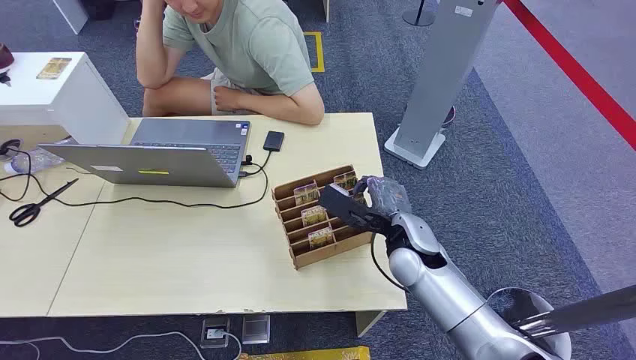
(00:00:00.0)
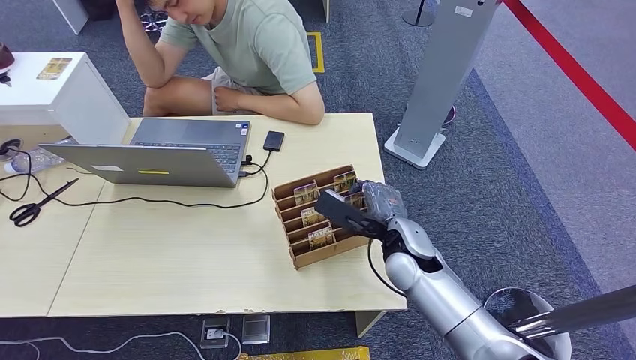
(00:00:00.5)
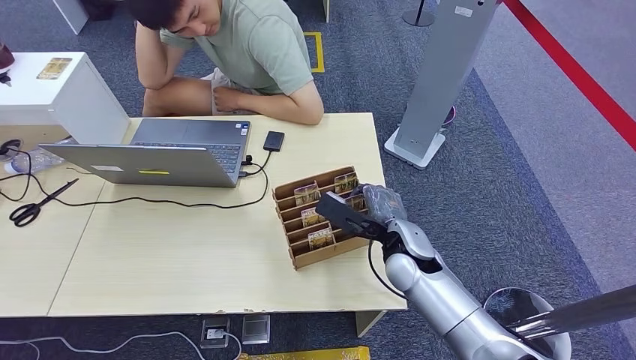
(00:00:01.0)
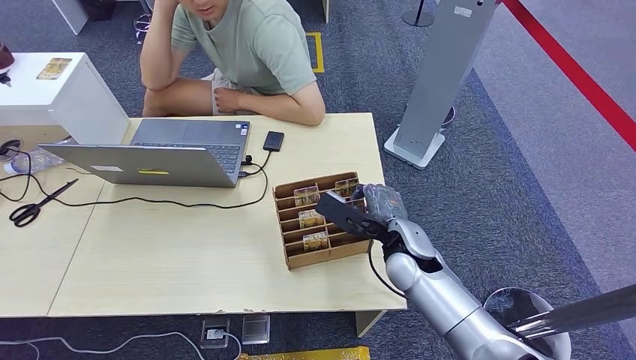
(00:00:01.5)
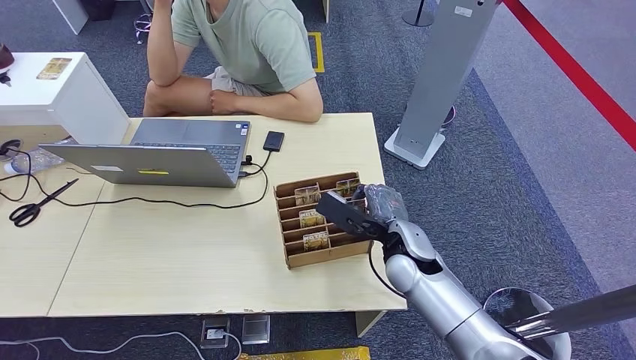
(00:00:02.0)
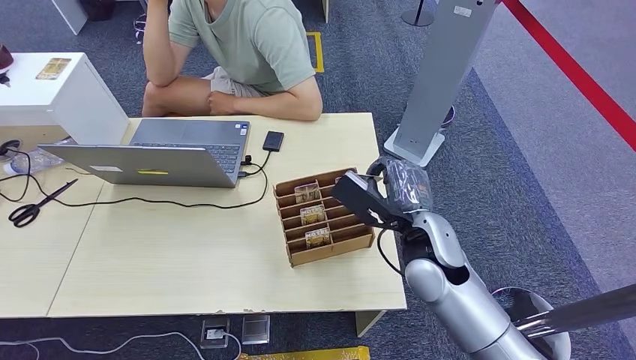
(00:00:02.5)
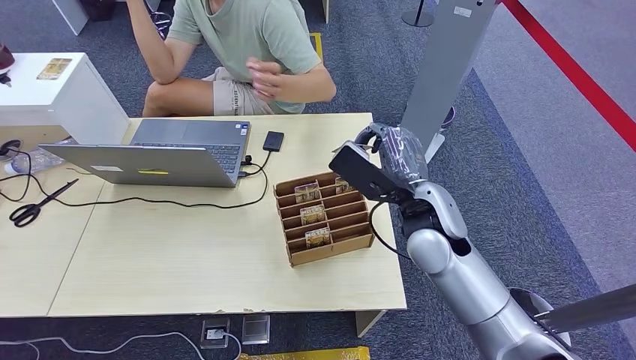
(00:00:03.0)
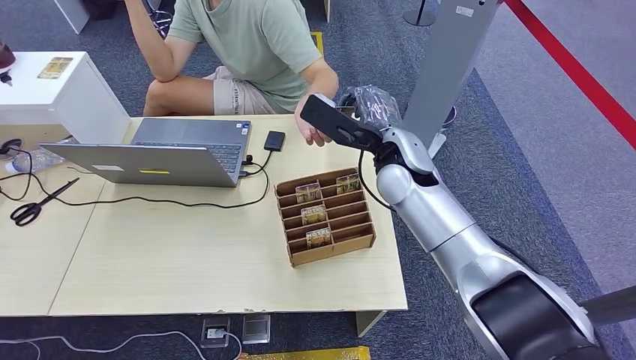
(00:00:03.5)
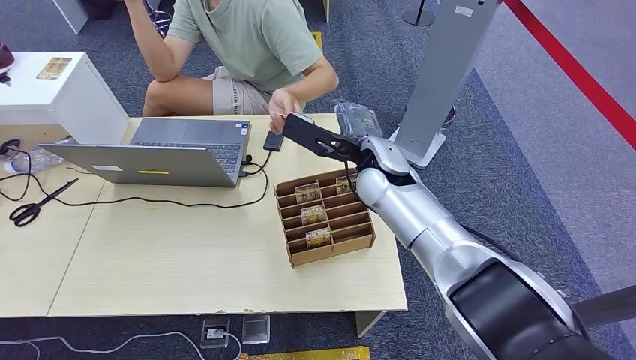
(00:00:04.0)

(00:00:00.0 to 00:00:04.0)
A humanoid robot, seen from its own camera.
Step, 00:00:00.0 - 00:00:02.5: Pick up the key card from the card box.
Step, 00:00:03.5 - 00:00:04.0: Hand the key card to the target.
00:00:02.0 - 00:00:04.0: The right hand shifts about 15 cm upward and forward.
